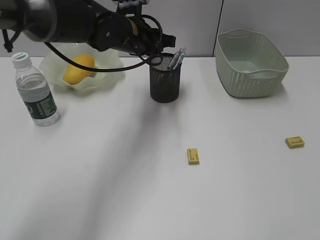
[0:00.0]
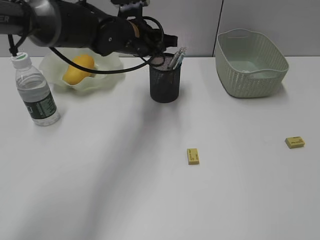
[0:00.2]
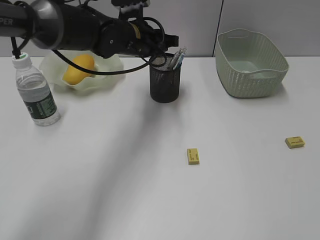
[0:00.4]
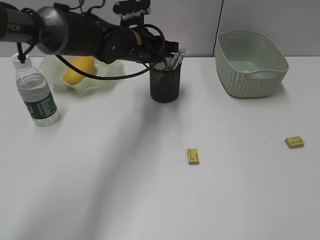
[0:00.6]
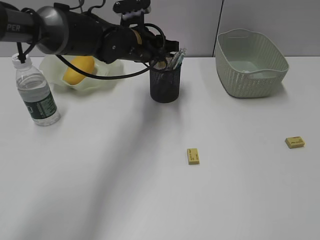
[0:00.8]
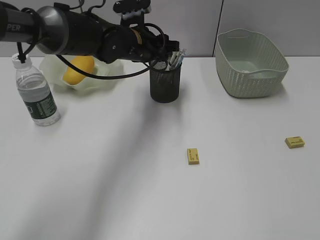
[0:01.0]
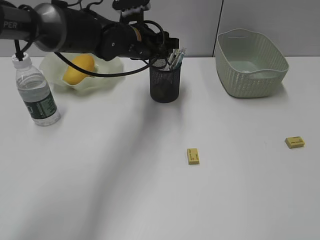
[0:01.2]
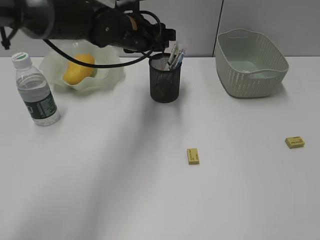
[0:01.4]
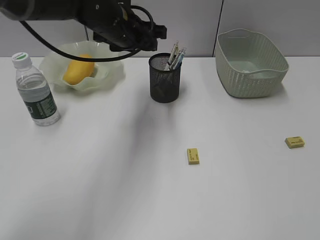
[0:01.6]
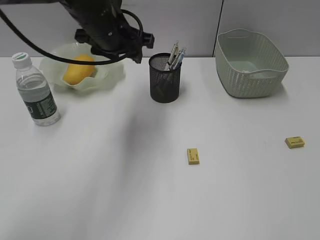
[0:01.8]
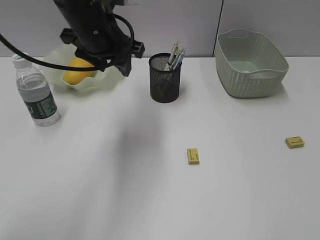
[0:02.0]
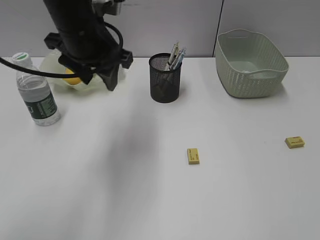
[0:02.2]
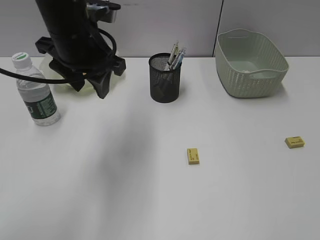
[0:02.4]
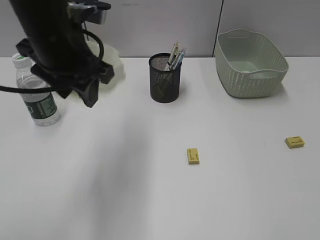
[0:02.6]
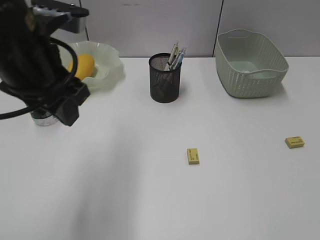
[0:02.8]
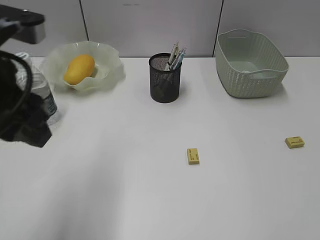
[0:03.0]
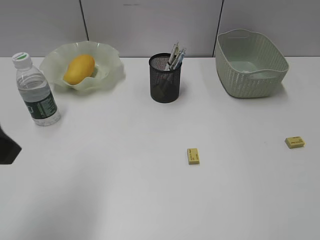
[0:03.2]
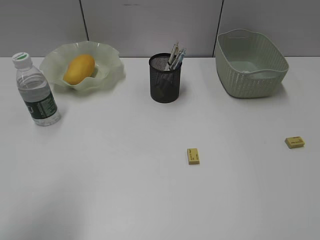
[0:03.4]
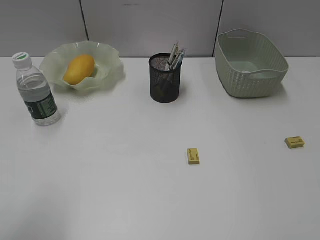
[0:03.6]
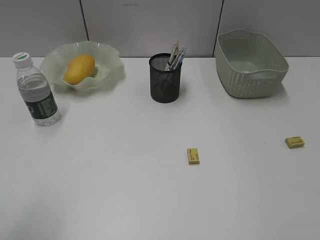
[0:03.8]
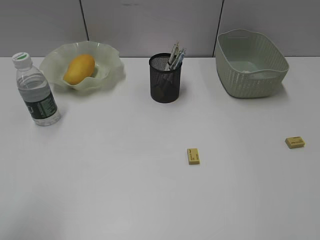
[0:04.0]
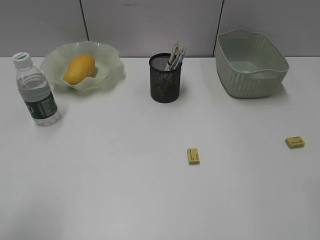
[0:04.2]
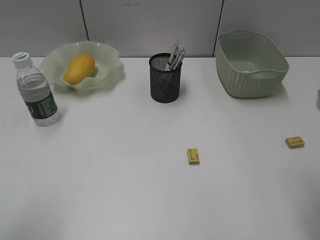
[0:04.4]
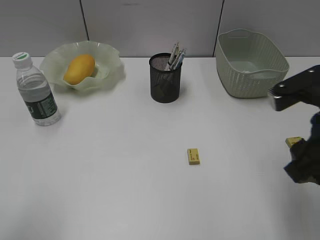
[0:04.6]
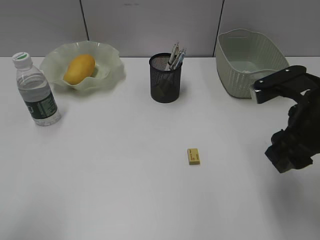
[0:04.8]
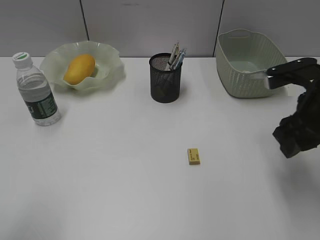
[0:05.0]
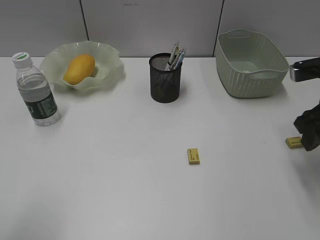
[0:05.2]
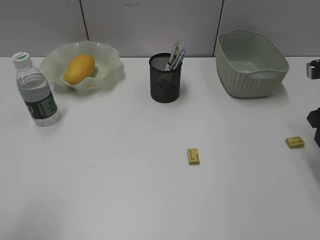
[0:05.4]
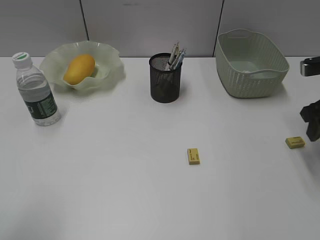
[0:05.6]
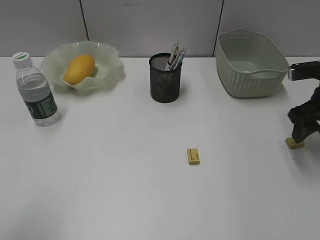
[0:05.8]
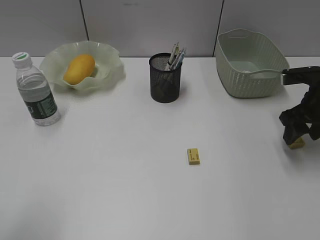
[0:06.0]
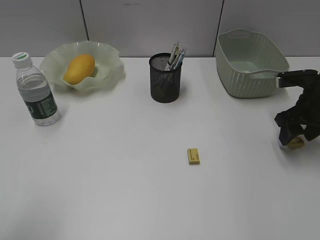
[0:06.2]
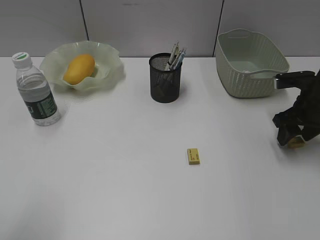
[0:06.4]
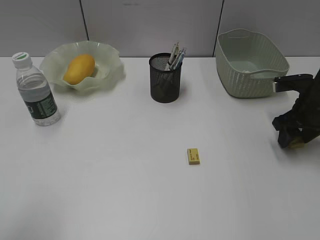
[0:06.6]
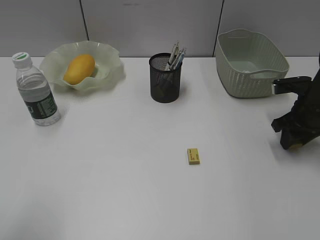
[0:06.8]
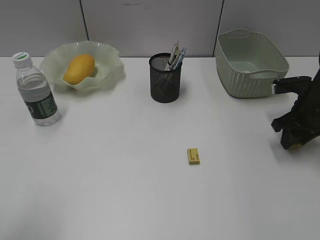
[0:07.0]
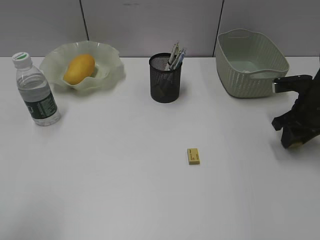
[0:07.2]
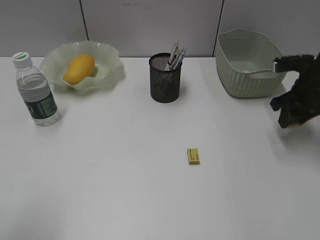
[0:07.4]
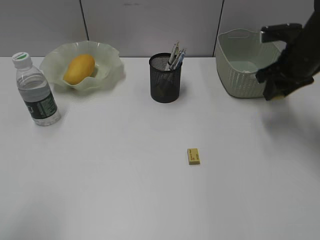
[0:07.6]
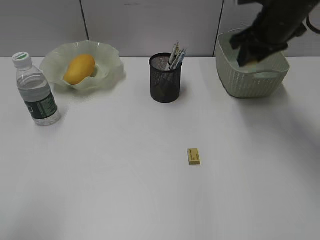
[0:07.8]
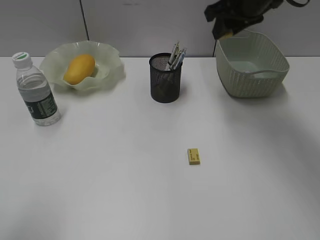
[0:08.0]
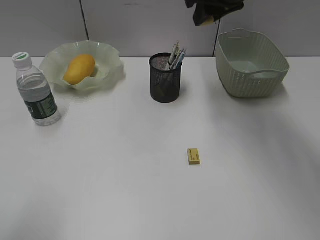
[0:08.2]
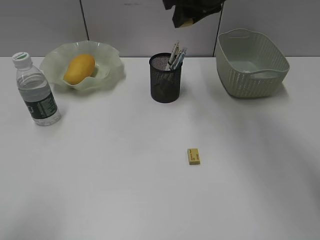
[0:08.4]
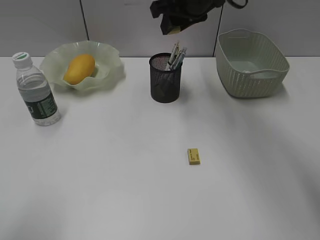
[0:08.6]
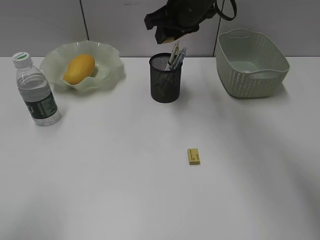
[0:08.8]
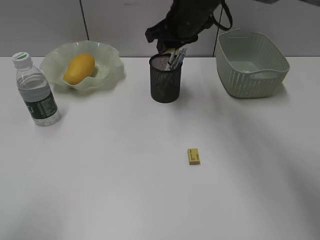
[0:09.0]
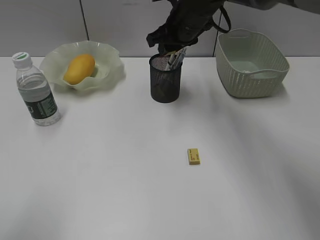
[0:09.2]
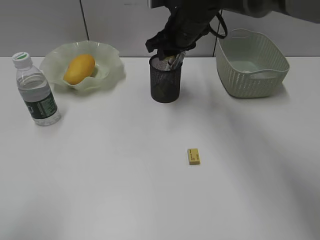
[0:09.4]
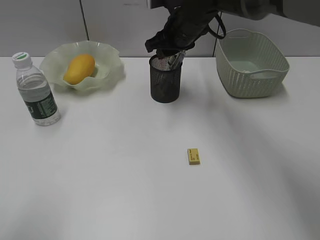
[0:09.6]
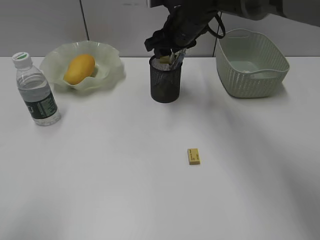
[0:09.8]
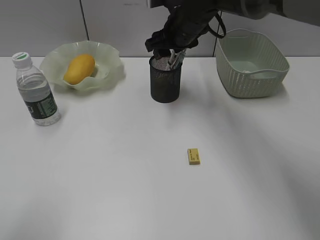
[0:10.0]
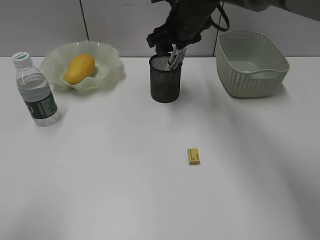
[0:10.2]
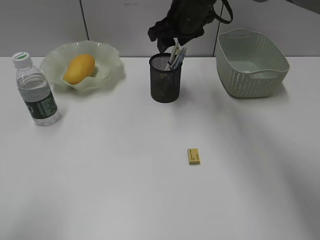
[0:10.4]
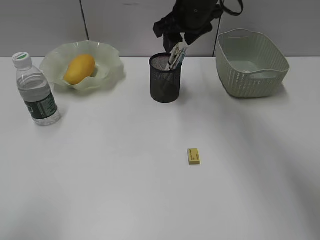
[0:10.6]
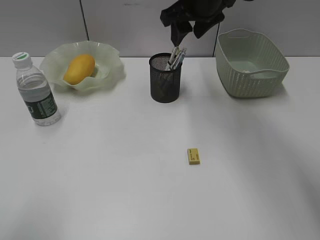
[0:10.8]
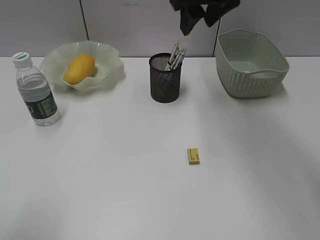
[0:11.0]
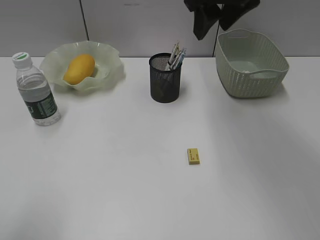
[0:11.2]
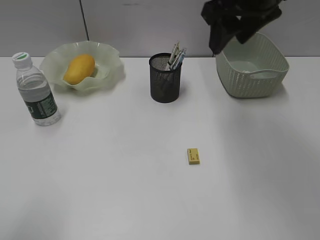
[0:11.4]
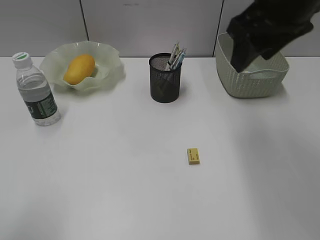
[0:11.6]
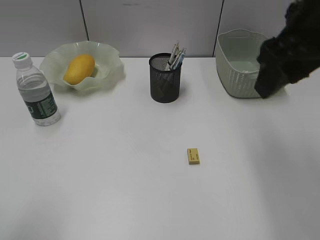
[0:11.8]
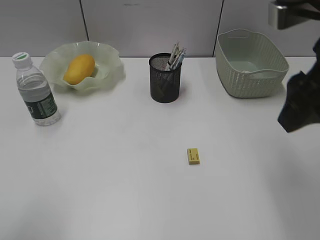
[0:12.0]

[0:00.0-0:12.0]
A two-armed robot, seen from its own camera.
Step, 0:01.2 to 0:07.0: Grasp the eraser with right gripper.
Step, 0:07.2 to 0:10.0: Place the eraser in pen holder with right gripper.
0:00.0 to 0:01.6: The left gripper opens.
0:01.6 to 0:03.0: The left gripper is displaced backward and to the left by about 25 cm.
0:03.0 to 0:04.4: The right gripper heads forward and to the left, covering roughly 10 cm; the left gripper moves backward and to the left, roughly 15 cm.
0:04.4 to 0:06.0: The right gripper moves forward and downward, roughly 25 cm.
0:06.0 to 0:07.6: The right gripper shifts by about 10 cm, and closes.
0:07.6 to 0:09.0: The right gripper travels to the left by about 20 cm.
0:09.0 to 0:10.4: The right gripper opens up.
0:10.4 to 0:12.0: The right gripper is displaced backward and to the right by approximately 30 cm.

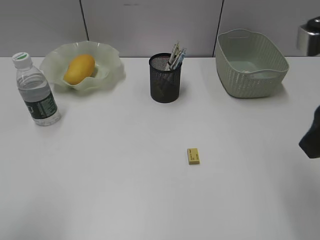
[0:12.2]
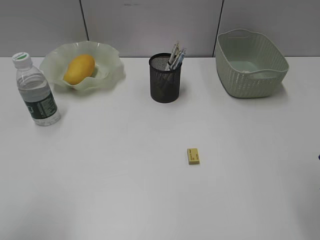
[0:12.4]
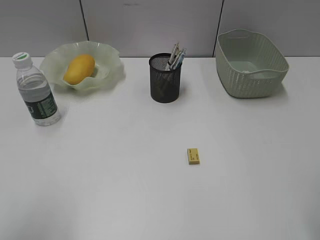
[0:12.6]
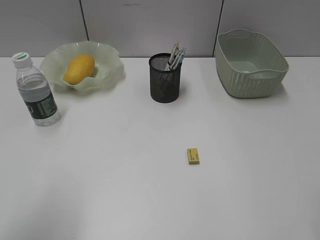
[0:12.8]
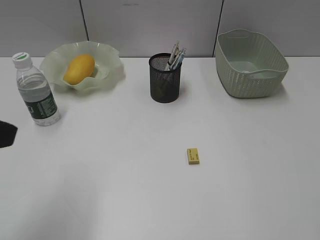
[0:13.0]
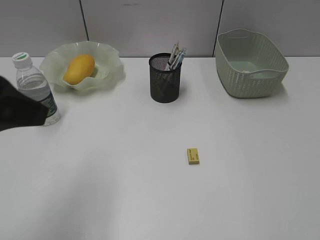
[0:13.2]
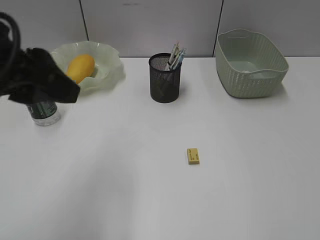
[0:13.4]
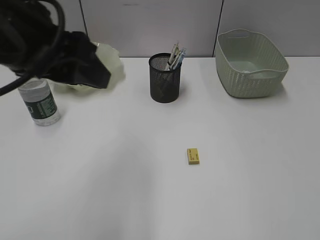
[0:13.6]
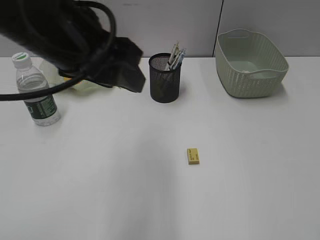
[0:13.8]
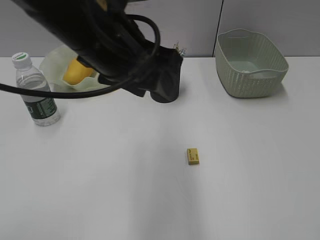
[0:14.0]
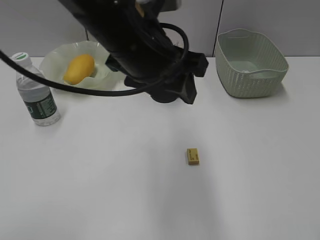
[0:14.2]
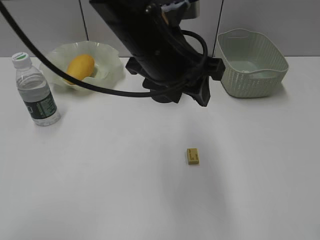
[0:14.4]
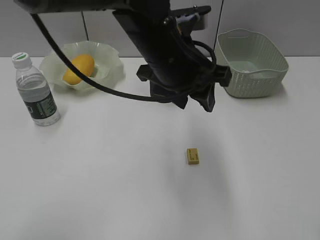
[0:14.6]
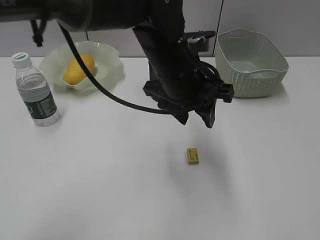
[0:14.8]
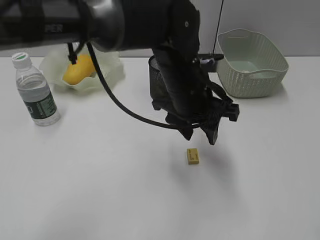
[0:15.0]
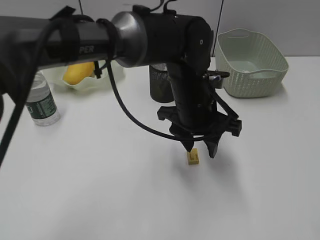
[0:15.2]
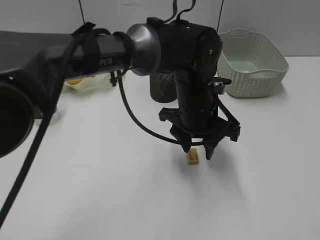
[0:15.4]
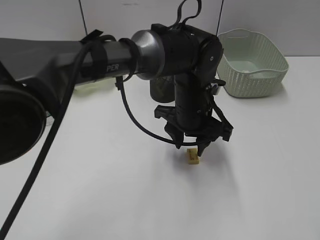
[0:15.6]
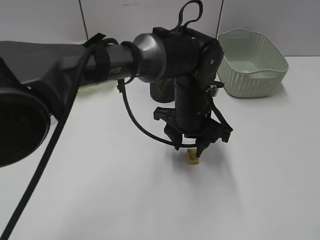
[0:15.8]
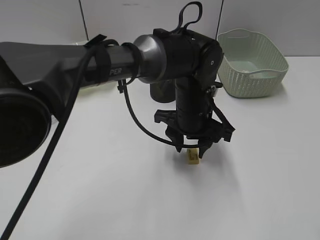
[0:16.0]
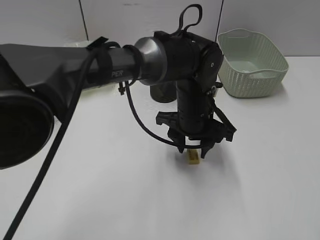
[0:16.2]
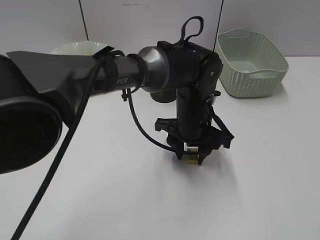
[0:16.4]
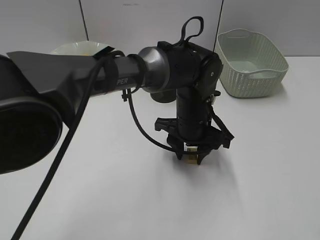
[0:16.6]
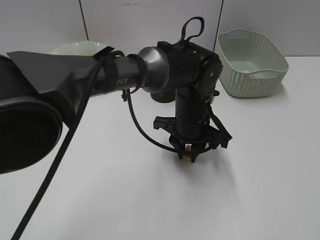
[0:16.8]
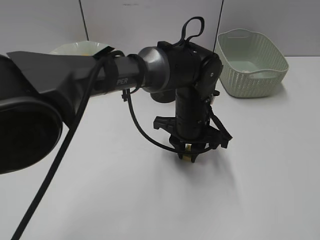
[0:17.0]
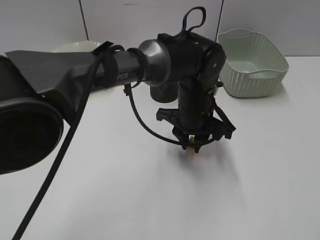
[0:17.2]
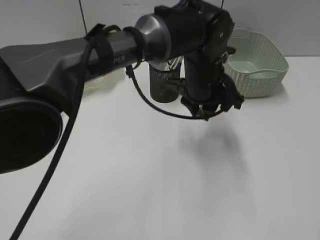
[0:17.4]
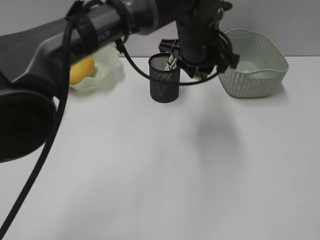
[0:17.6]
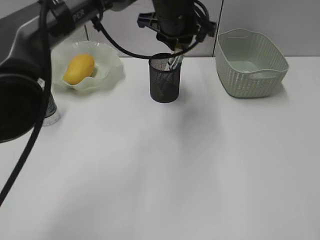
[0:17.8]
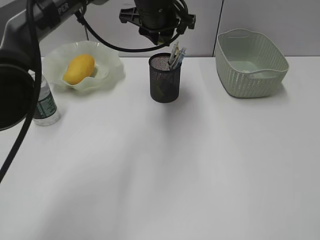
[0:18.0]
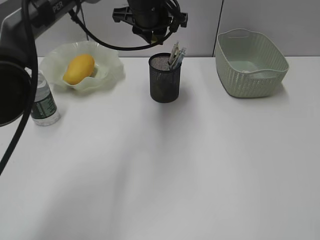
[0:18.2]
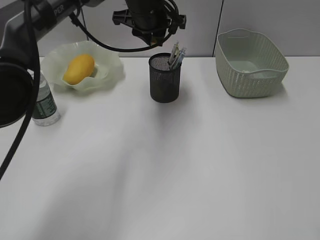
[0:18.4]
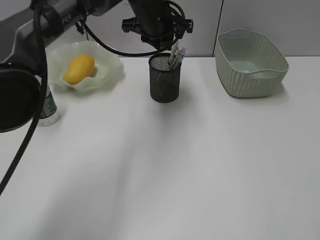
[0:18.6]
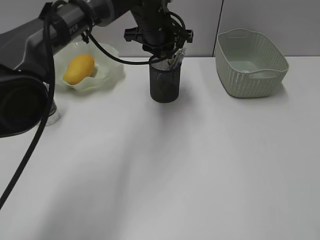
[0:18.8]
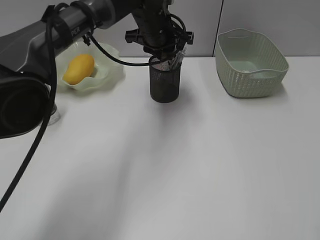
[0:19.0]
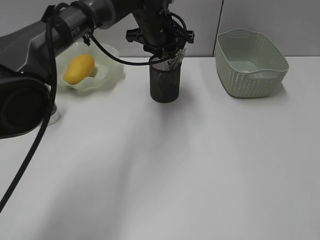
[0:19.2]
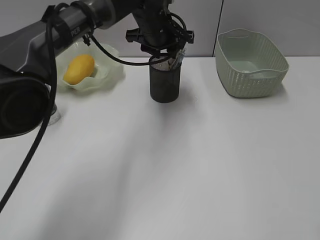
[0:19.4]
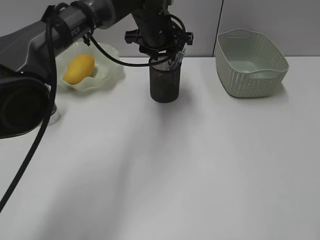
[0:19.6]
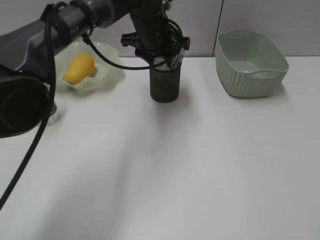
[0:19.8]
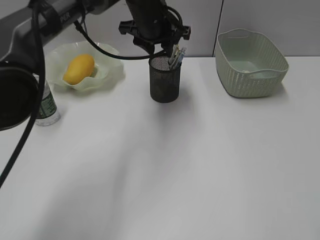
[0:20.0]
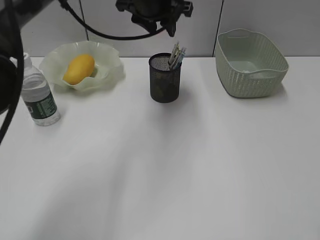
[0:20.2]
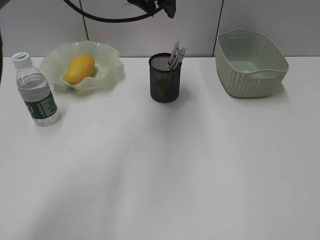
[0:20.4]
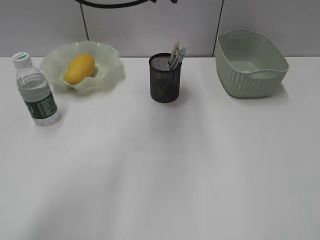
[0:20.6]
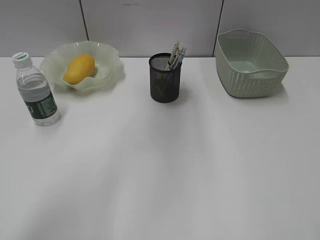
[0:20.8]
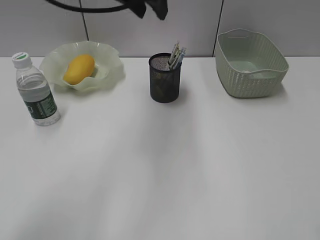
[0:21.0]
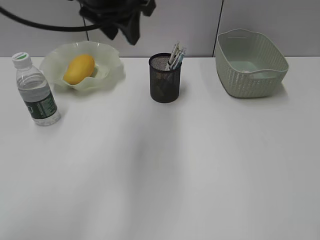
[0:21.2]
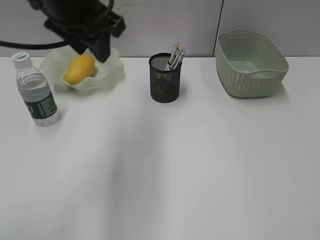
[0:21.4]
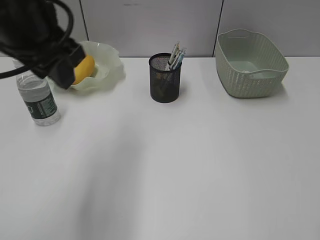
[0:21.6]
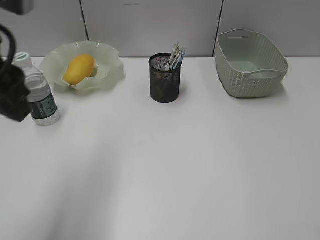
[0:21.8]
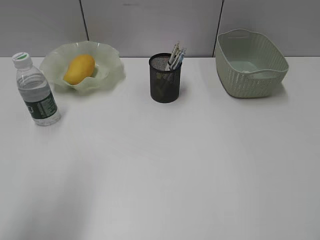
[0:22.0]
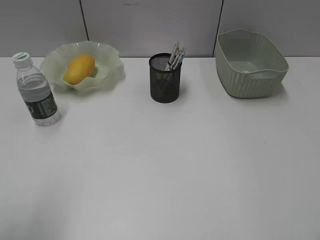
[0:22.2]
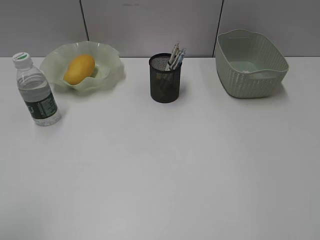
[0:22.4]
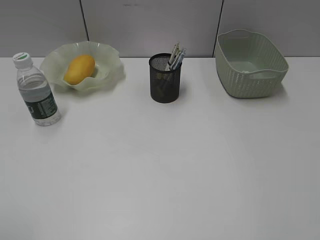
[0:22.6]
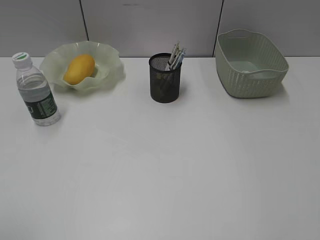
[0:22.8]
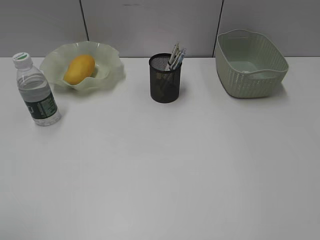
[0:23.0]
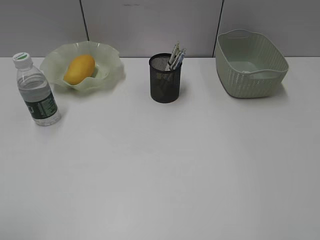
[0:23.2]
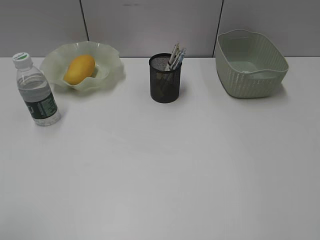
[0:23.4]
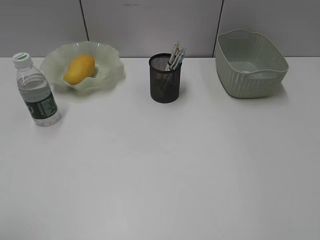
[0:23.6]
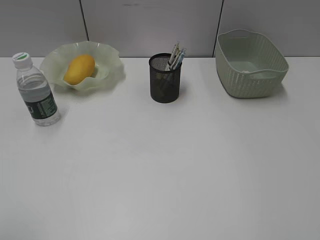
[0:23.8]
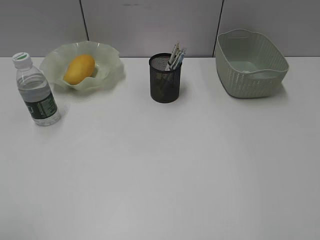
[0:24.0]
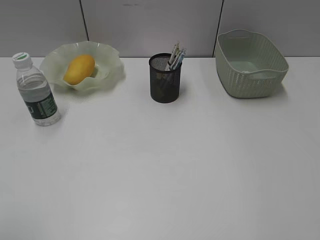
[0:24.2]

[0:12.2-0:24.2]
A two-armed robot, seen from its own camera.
Step, 0:12.2 to 0:17.0: Grasp the eraser with left gripper.
Step, 0:17.2 to 0:19.6: Place the eraser in pen holder with left gripper.
0:12.2 to 0:13.8: The left gripper shifts about 25 cm to the right and forward; the right gripper travels backward and to the right by about 15 cm.
0:13.8 to 0:15.2: The left gripper goes some 25 cm to the right, downward and forward.
0:15.2 to 0:16.6: The left gripper goes some 5 cm downward.
0:16.6 to 0:18.2: The left gripper moves upward, forward and to the left, about 20 cm, and closes.
0:18.2 to 0:19.8: The left gripper is displaced downward by roughly 5 cm, and opens its fingers.
0:19.8 to 0:21.2: The left gripper heads upward, backward and to the left, covering about 15 cm.
0:21.2 to 0:22.6: The left gripper heads backward and to the left, covering roughly 40 cm, and opens its fingers.
